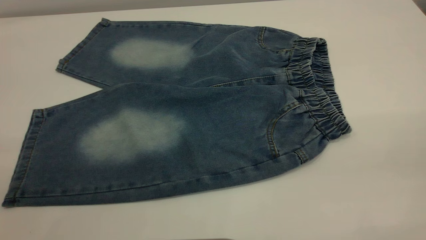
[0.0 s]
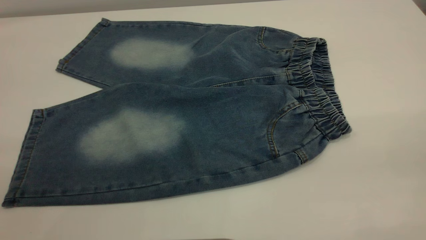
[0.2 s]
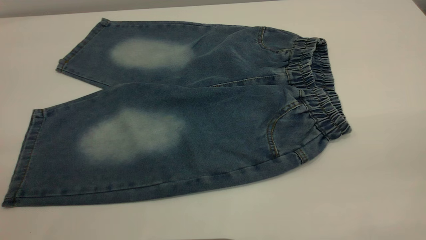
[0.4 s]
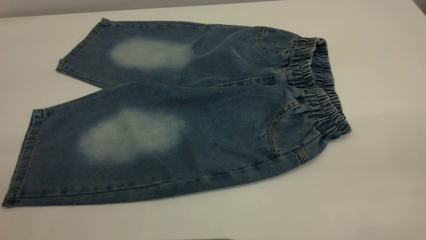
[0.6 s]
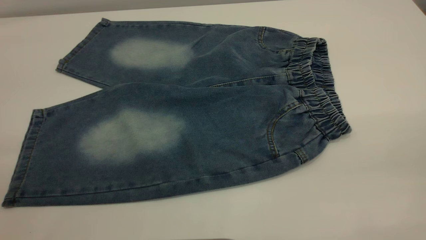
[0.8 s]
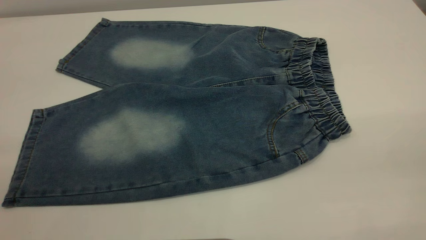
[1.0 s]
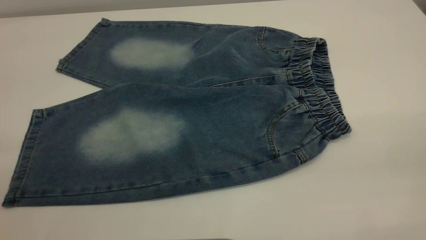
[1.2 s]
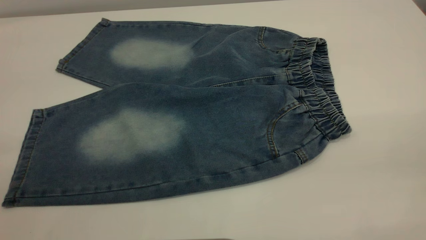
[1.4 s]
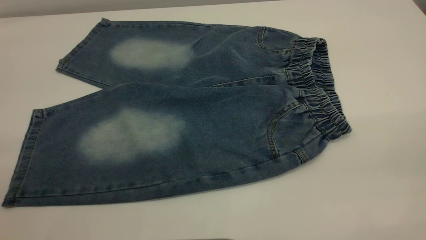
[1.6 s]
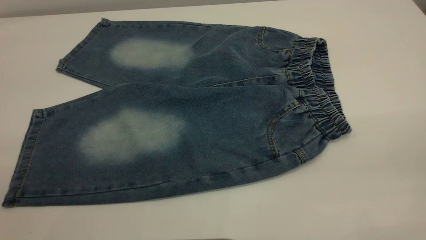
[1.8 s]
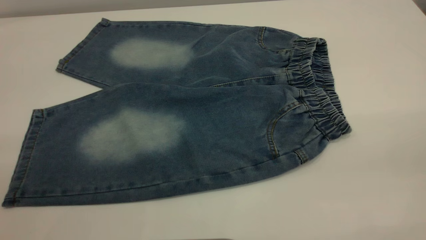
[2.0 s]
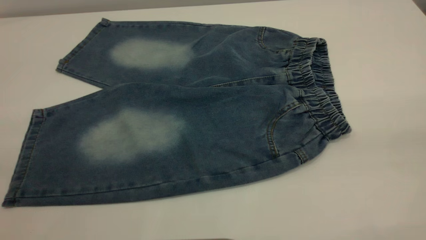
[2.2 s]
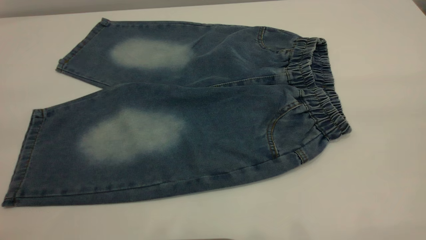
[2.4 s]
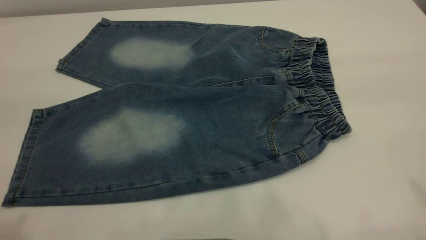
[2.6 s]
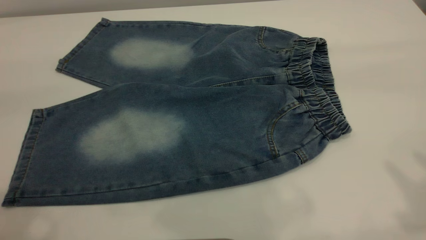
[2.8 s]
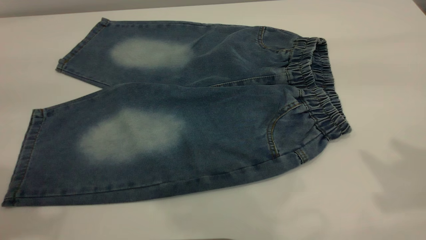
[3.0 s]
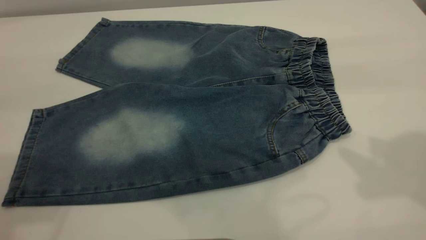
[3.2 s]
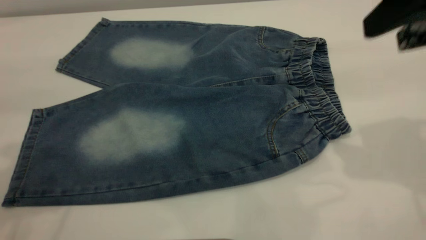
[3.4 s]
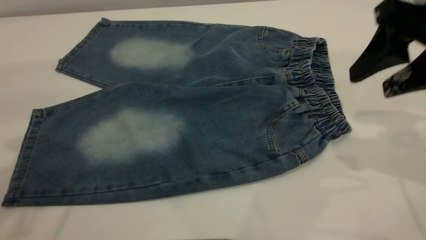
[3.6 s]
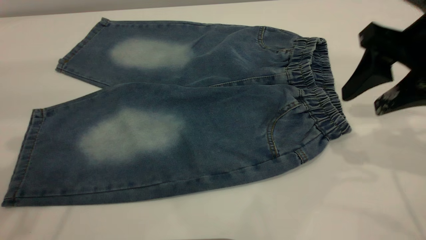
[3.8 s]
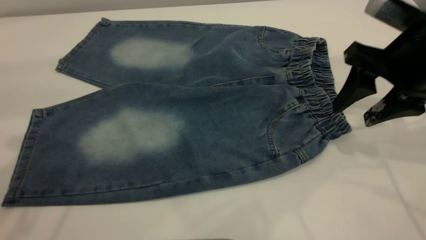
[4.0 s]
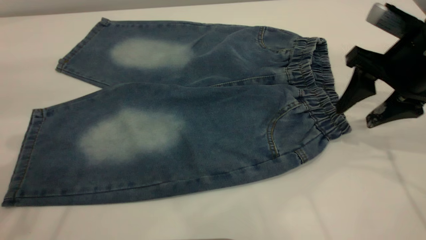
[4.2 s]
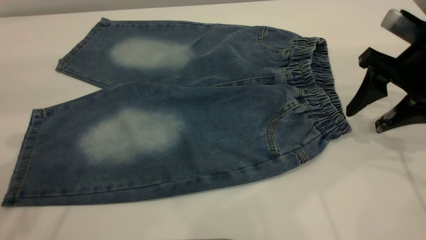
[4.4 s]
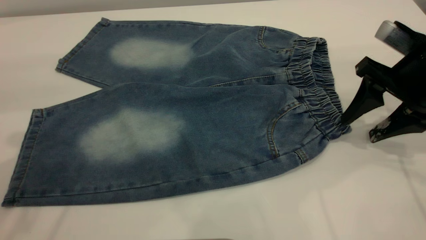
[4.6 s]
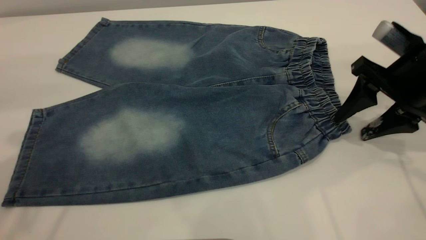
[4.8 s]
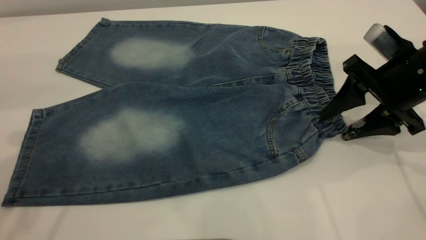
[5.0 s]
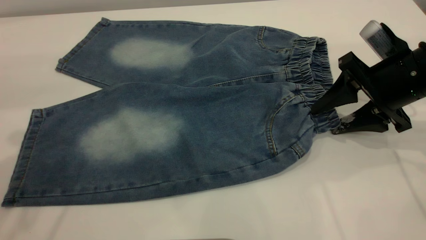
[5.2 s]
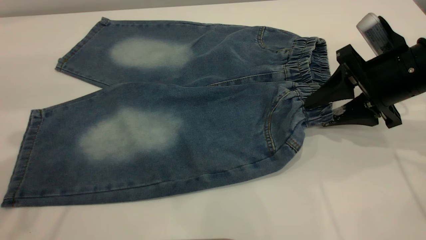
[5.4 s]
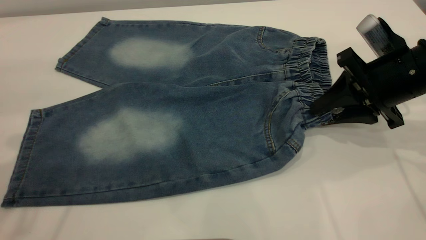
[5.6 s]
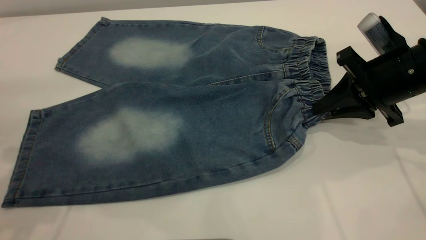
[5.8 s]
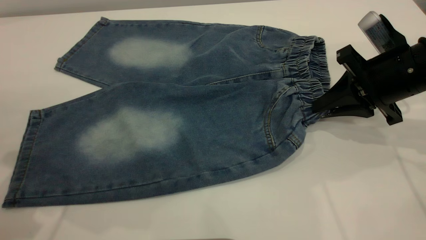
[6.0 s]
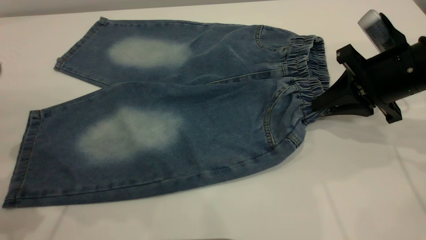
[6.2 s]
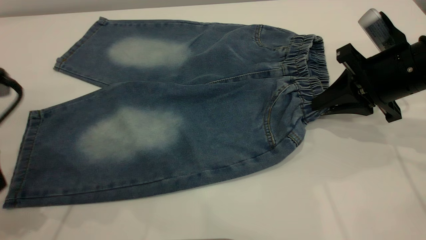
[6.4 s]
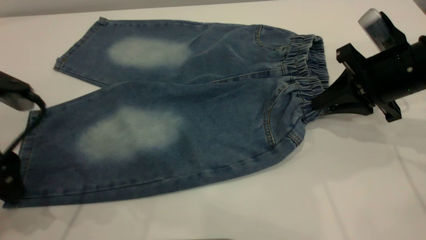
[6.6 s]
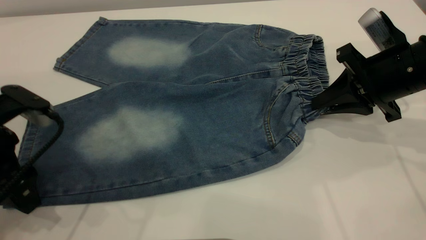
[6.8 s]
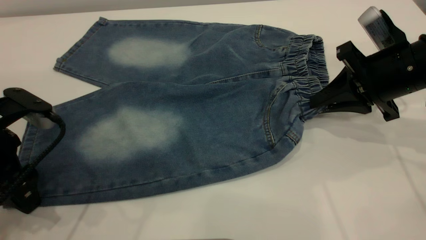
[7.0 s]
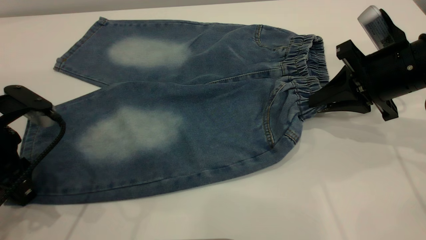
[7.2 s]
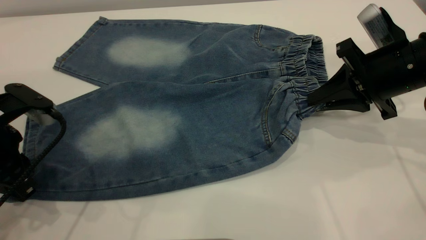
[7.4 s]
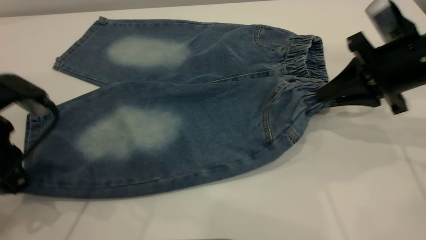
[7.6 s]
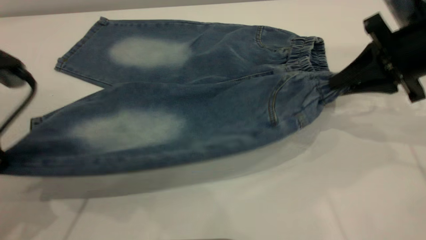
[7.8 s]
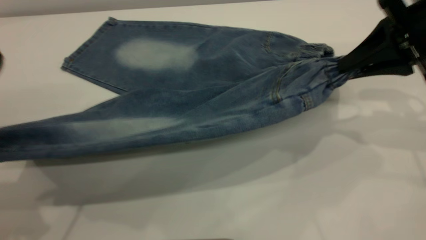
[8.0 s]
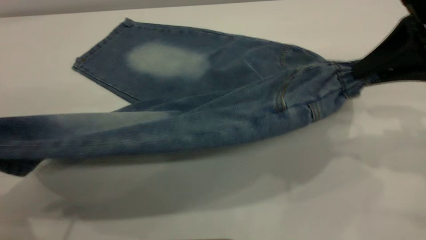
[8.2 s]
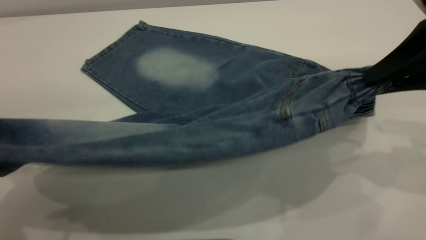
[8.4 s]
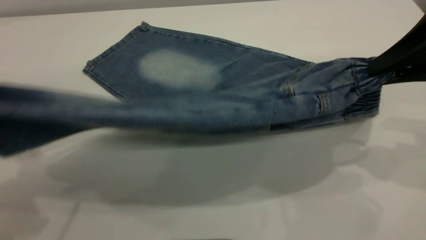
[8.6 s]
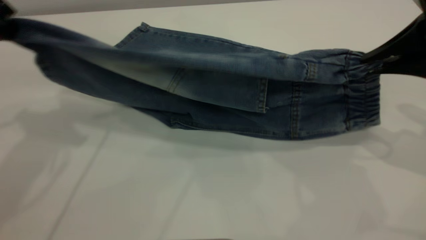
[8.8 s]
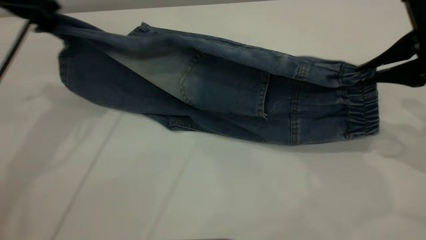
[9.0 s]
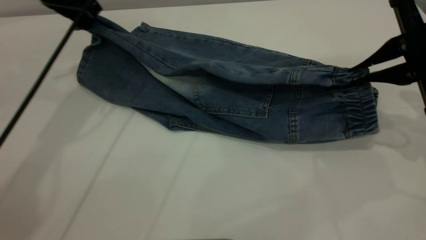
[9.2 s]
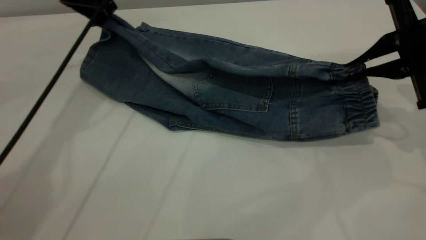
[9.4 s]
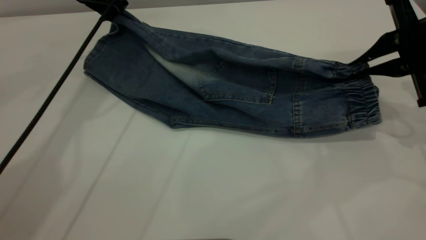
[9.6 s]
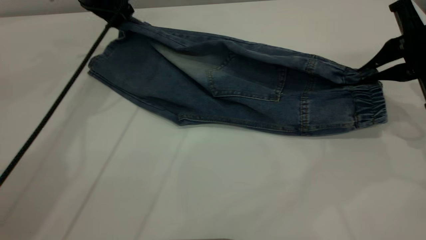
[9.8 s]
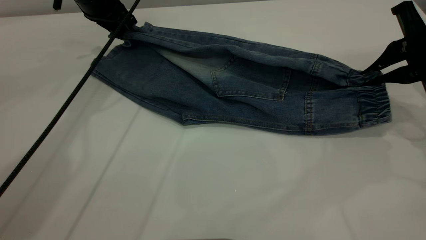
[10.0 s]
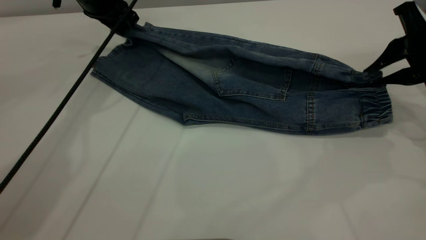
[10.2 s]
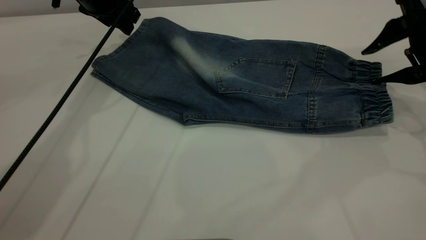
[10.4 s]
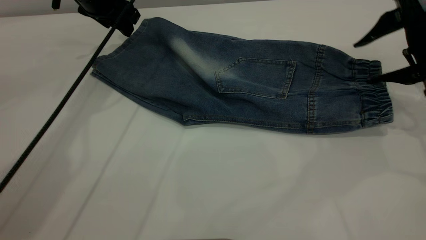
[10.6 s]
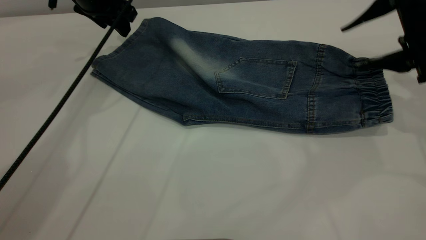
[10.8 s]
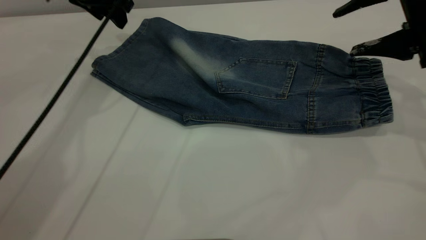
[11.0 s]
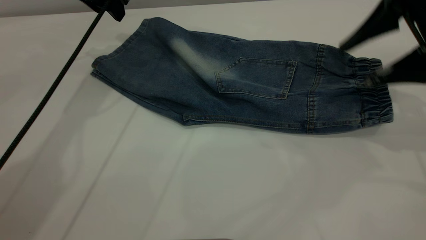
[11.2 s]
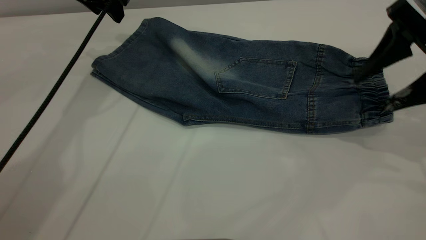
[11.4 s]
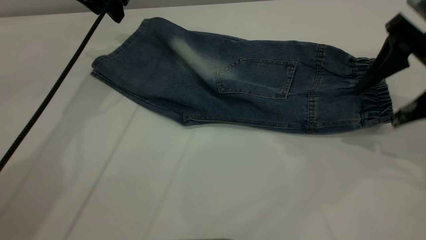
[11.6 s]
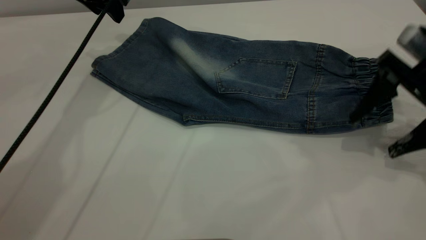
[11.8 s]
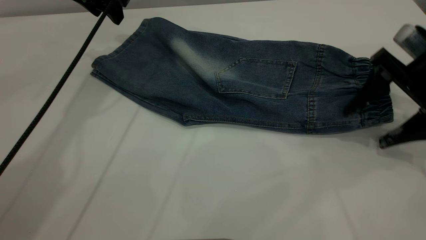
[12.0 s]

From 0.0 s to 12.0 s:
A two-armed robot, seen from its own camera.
Step, from 0.0 s to 10.6 s: Fold the bottom of the pants upward.
From 0.0 s to 1.6 s: The two grippers keep their place.
From 3.0 s to 4.4 s: The left gripper moves downward and forward, roughly 10 cm, while the right gripper shifts about 25 cm downward and forward.
From 4.4 s to 6.0 s: The right gripper closes its fingers, while the left gripper shifts about 10 cm downward.
From 6.0 s to 7.6 s: The left gripper is displaced downward by roughly 10 cm, and closes.
From 7.6 s to 9.0 s: The left gripper heads forward and upward, covering roughly 20 cm, while the right gripper goes roughly 5 cm upward.
From 9.0 s to 10.4 s: The right gripper shifts roughly 5 cm forward, and opens its fingers; the left gripper moves forward and downward, about 15 cm, and opens.

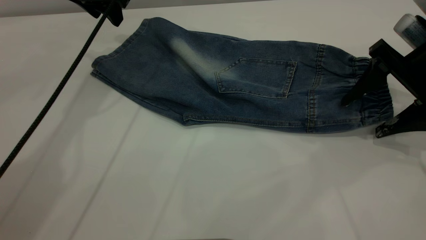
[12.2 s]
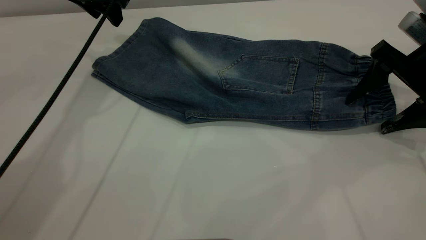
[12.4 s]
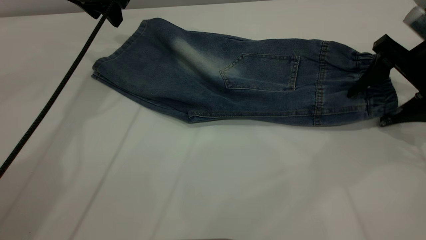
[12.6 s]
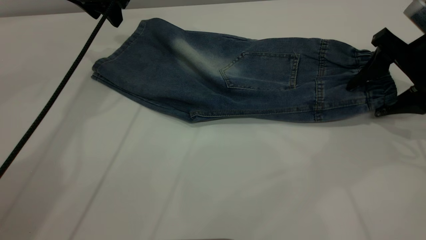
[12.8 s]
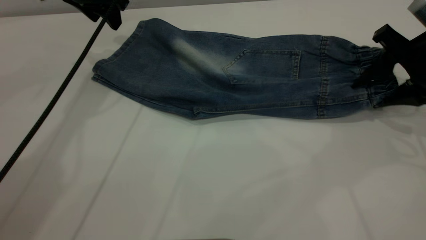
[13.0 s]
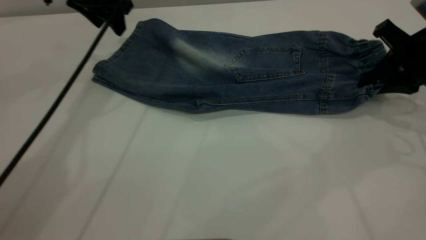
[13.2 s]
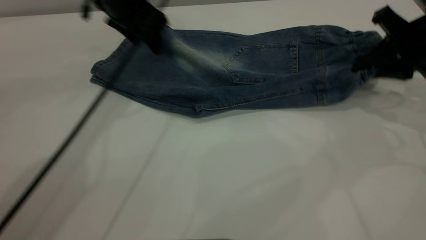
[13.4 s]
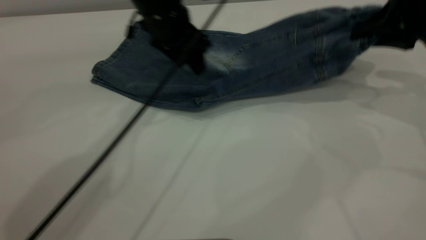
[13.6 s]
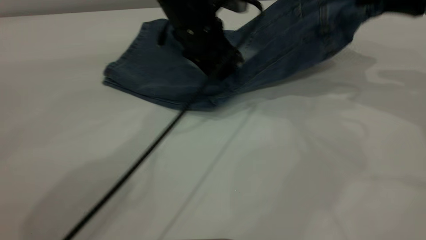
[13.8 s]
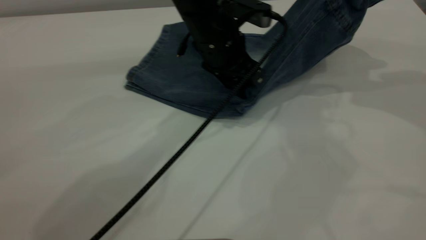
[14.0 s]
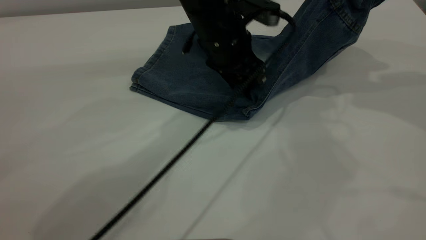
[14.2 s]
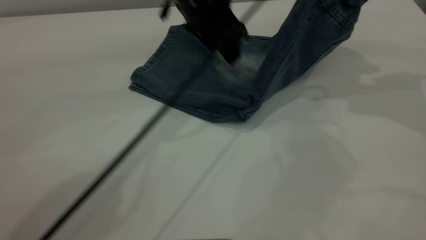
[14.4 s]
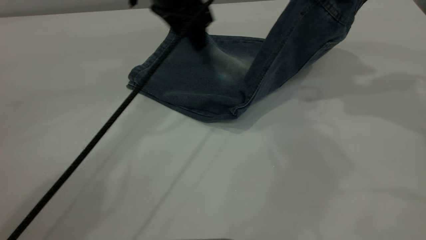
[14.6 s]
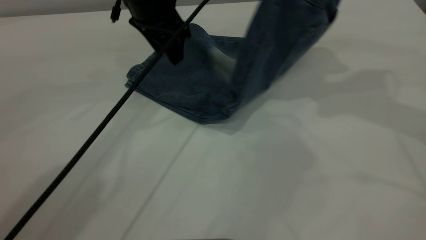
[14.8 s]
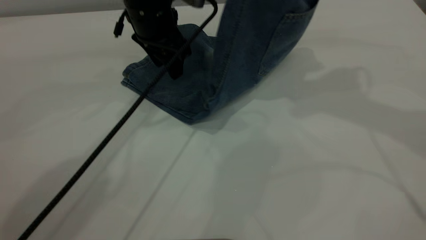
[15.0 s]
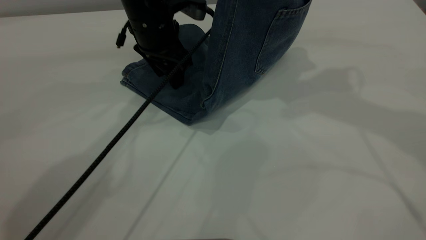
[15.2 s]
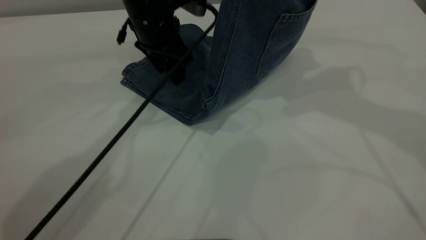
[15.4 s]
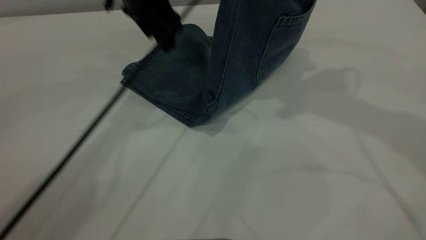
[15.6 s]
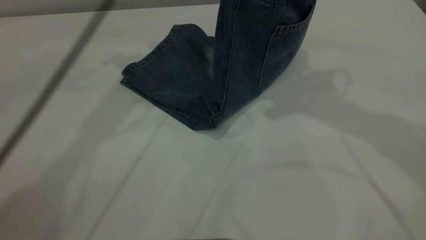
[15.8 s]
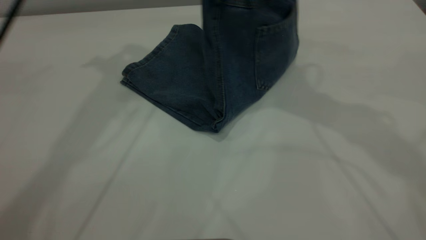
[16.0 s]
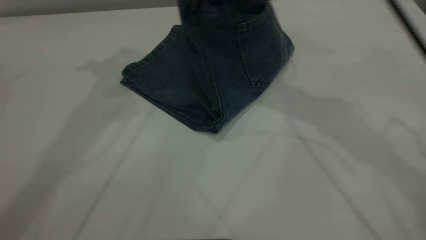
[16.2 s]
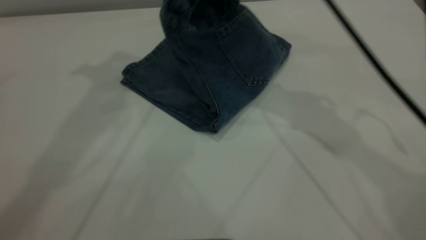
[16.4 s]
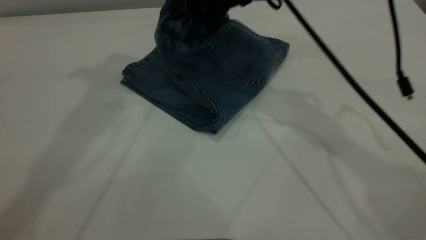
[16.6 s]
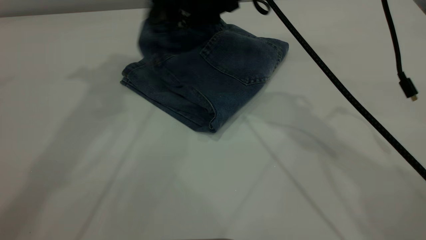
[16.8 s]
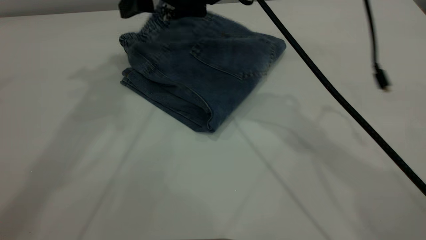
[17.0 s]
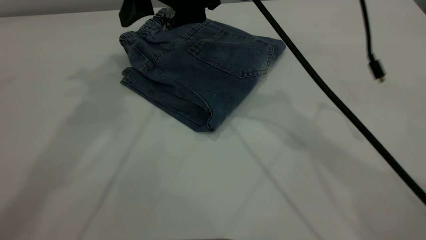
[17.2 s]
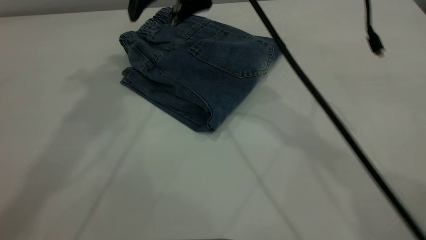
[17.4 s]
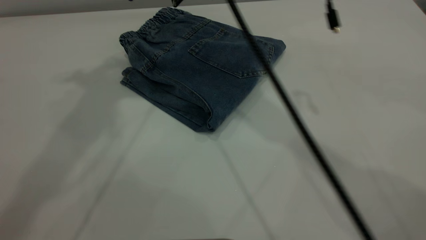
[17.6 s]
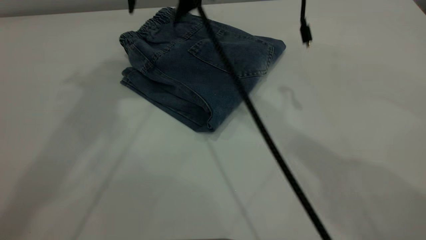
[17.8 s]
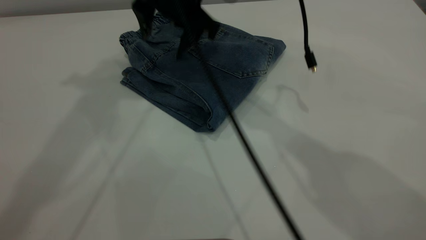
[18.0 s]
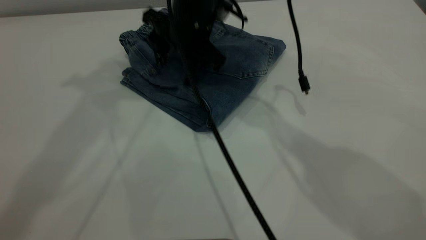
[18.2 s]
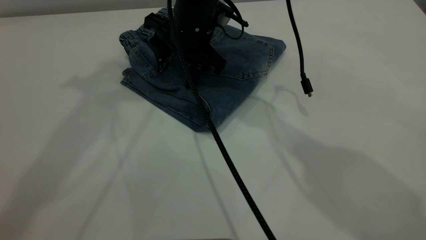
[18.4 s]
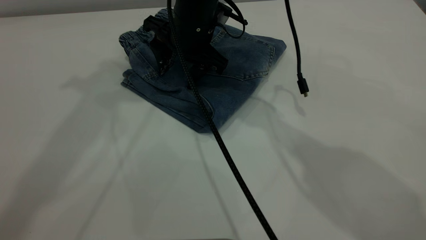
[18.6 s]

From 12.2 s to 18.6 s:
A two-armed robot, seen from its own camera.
Step, from 12.2 s to 17.2 s: Fold your pants from right to left.
From 12.2 s to 13.8 s: The right gripper moves upward, about 10 cm, and closes; the left gripper is displaced to the right, backward and downward by about 20 cm.
From 13.8 s to 15.4 s: The left gripper moves to the left, about 5 cm. The right gripper travels to the left and upward by roughly 10 cm.
From 15.4 s to 17.0 s: The left gripper travels upward by approximately 25 cm. Meanwhile the right gripper moves to the left and downward, roughly 20 cm, and opens up.
From 17.0 s to 18.6 s: The right gripper travels downward by approximately 10 cm.
